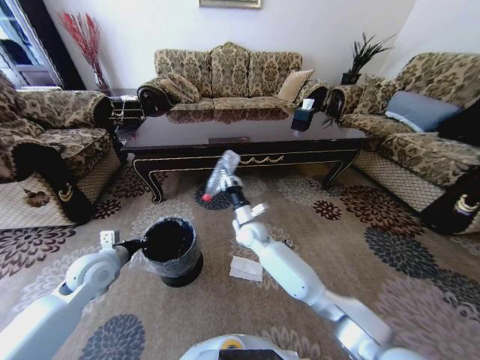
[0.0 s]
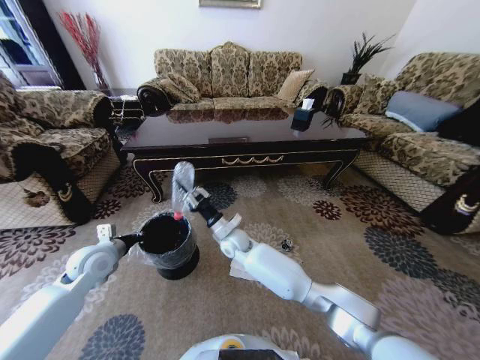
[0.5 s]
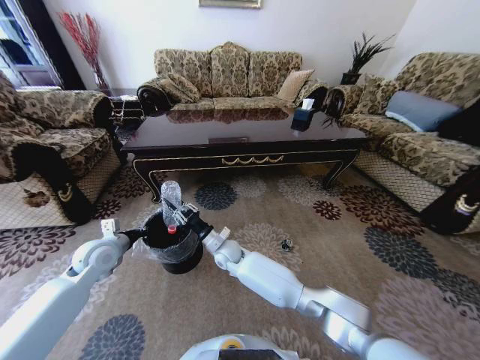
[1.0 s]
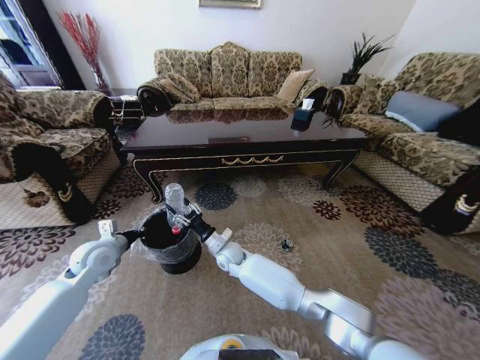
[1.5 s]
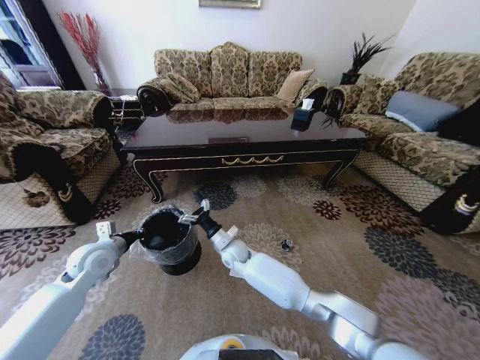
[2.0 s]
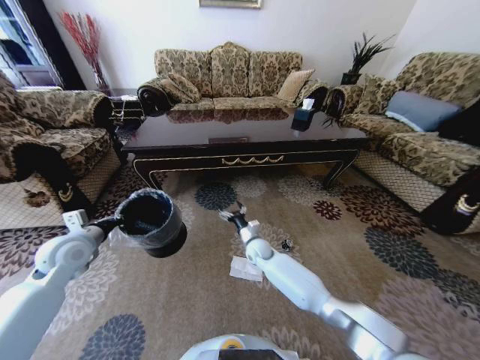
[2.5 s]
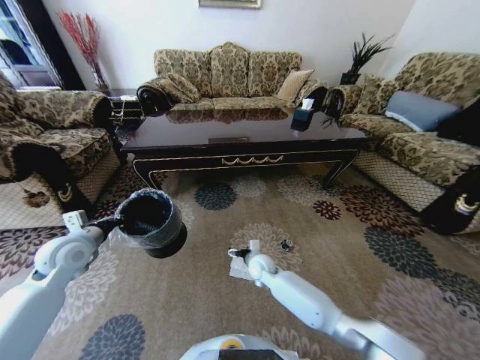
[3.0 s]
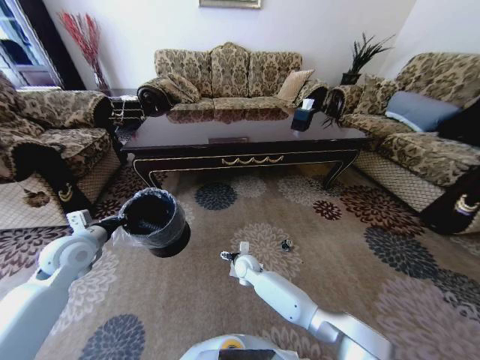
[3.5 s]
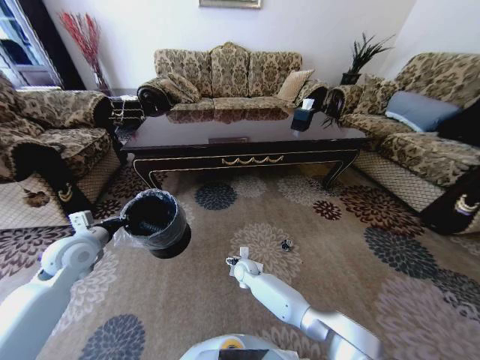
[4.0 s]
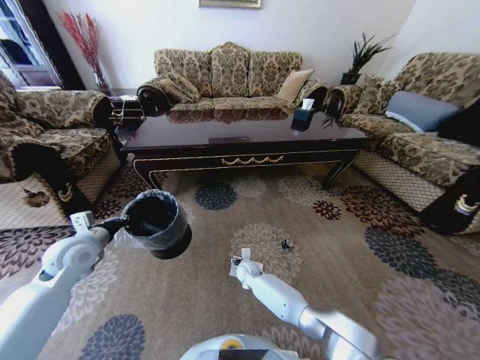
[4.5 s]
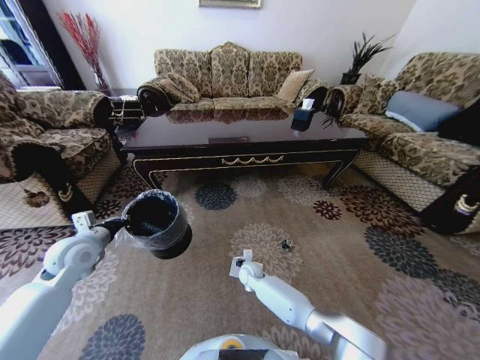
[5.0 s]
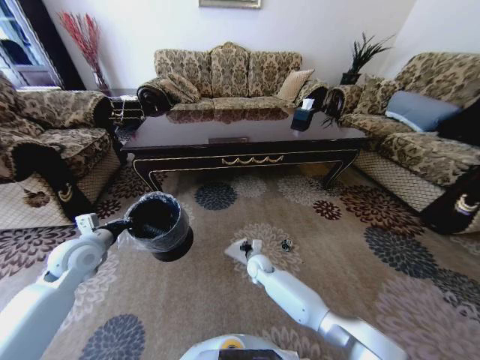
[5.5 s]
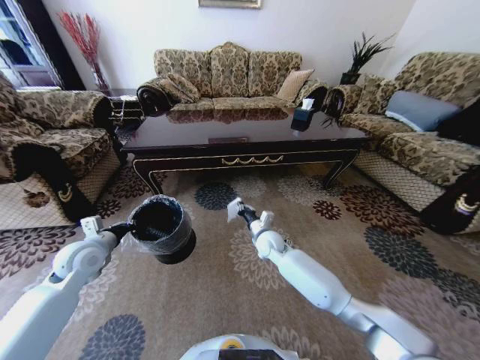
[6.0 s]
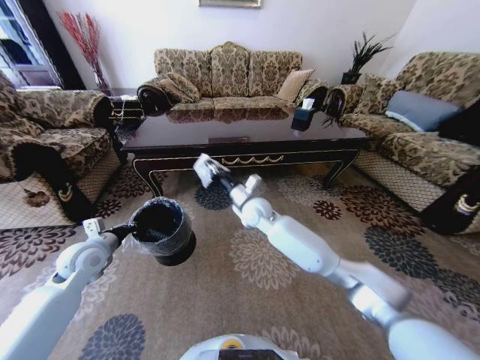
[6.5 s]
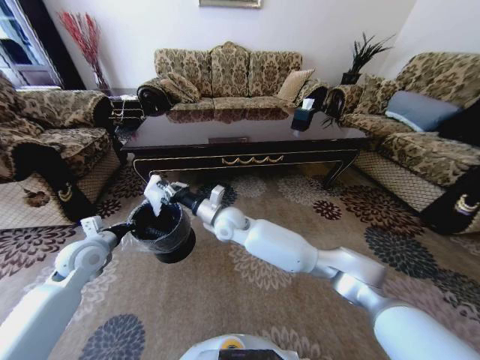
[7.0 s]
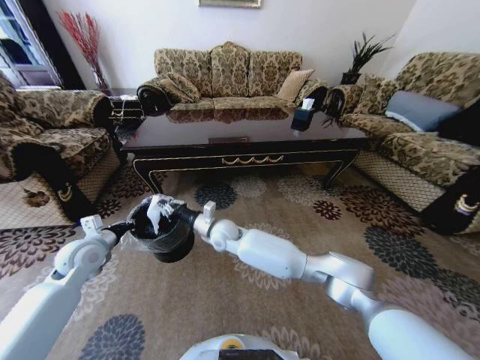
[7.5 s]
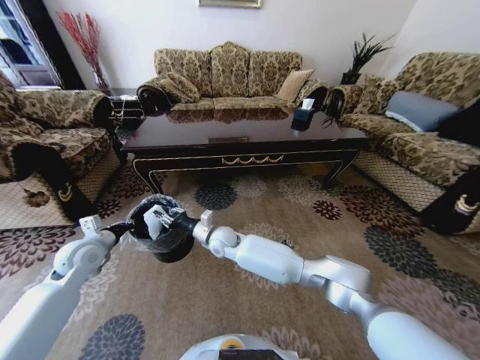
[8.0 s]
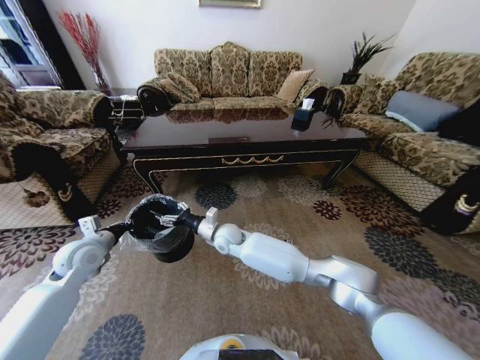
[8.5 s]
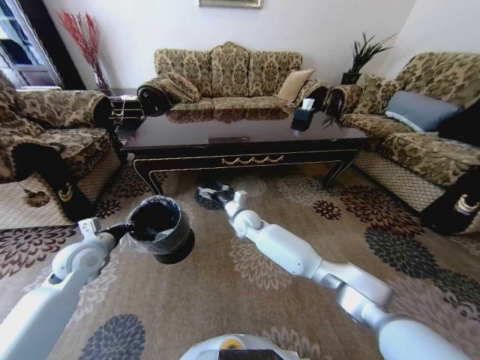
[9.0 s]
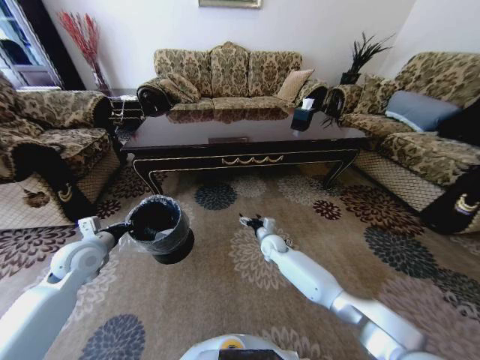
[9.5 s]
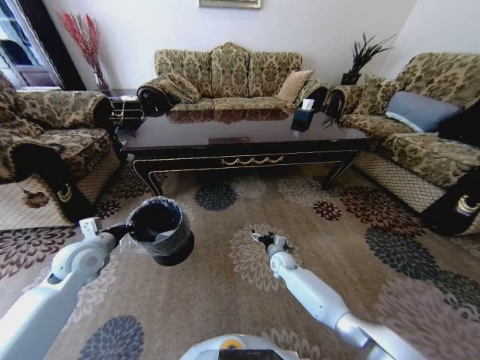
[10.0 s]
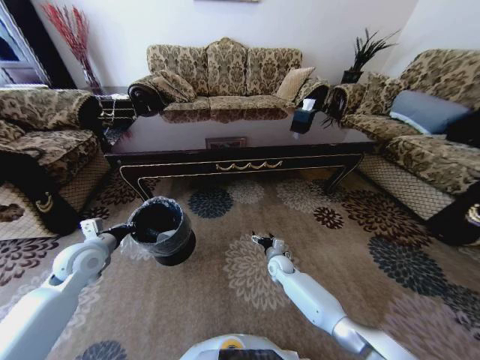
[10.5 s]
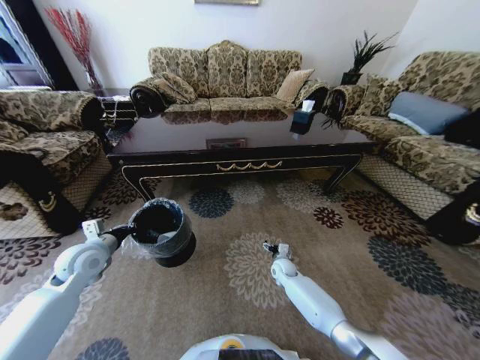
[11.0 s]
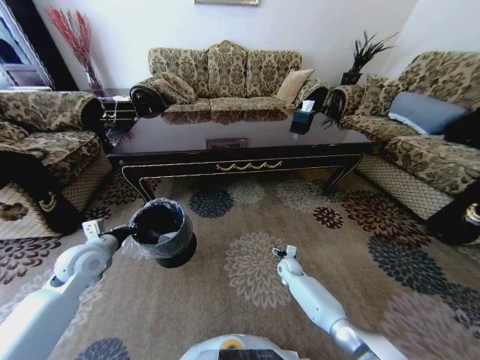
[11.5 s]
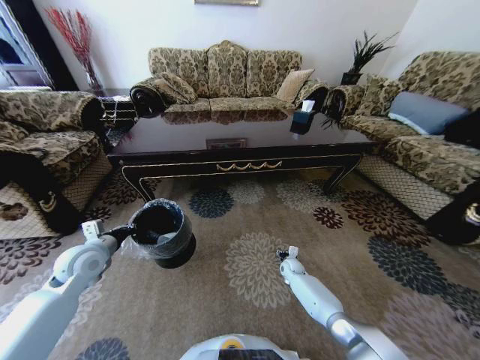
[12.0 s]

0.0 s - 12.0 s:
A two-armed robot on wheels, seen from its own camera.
Task of the whole recording: Move to the front of the table and pick up the trash from the floor, then place it into the trash bin.
0.0 s - 2.0 s: The right gripper goes about 10 cm to the left and downward, and opens.
2.0 s - 4.0 s: The right gripper shifts some 10 cm downward.
4.0 s - 6.0 s: The right gripper shifts approximately 15 cm upward and to the right, and closes.
6.0 s - 8.0 s: The right gripper shifts some 15 cm to the left.
8.0 s - 10.0 s: The right gripper goes roughly 30 cm to the right and downward, and opens.
10.0 s - 12.0 s: The right gripper moves downward and to the right, roughly 10 cm.

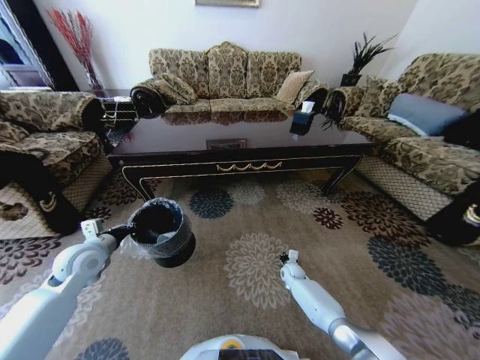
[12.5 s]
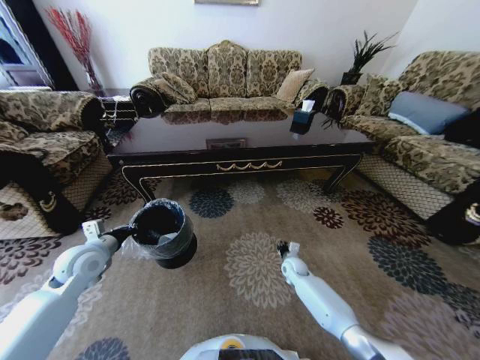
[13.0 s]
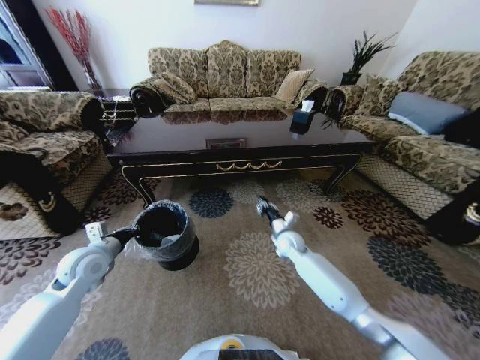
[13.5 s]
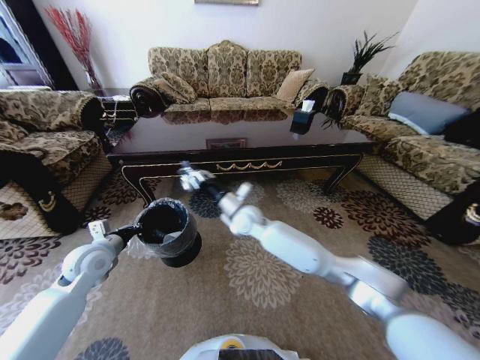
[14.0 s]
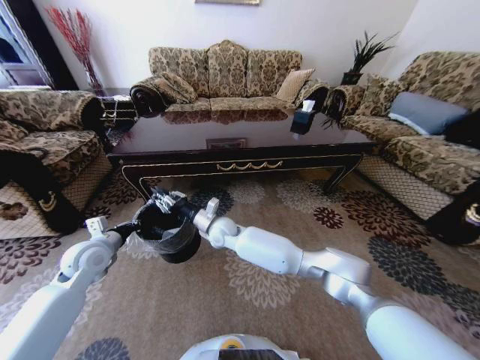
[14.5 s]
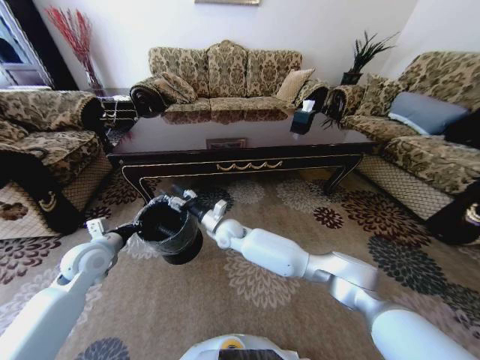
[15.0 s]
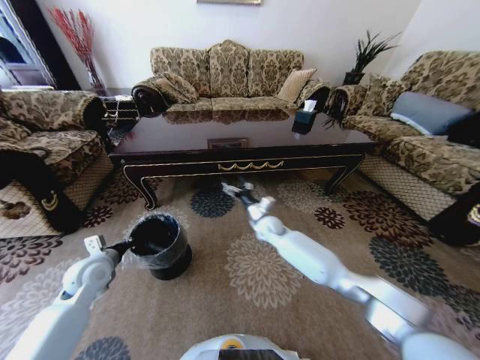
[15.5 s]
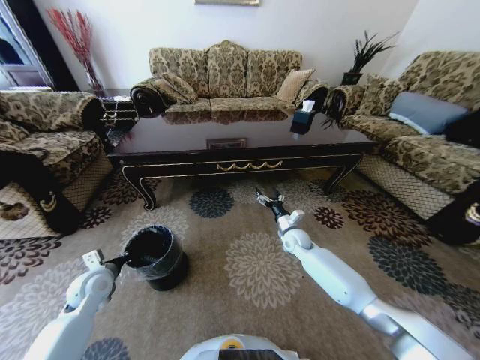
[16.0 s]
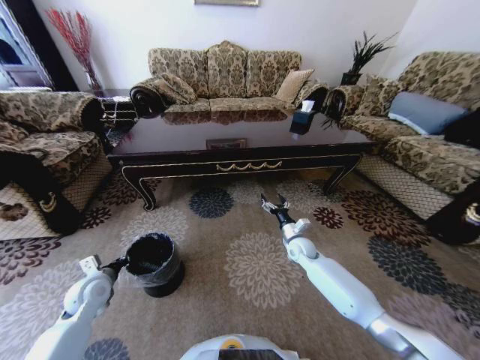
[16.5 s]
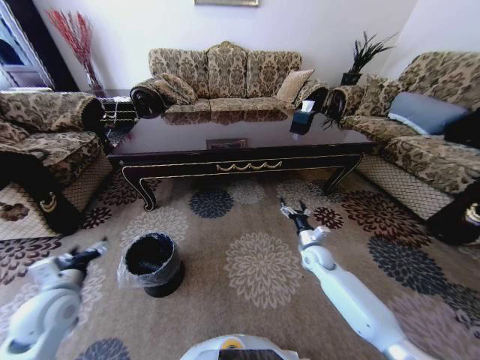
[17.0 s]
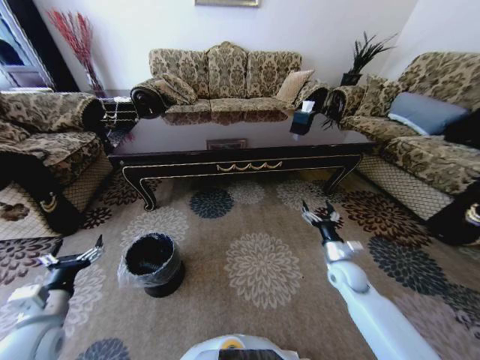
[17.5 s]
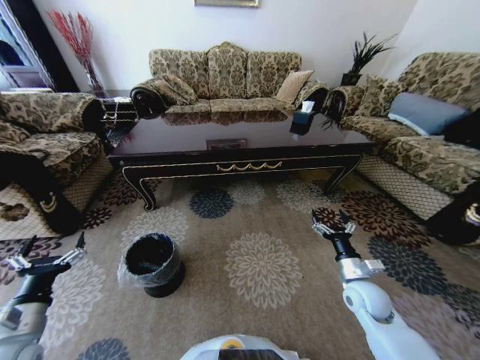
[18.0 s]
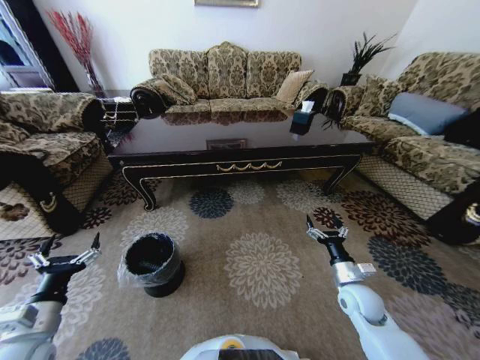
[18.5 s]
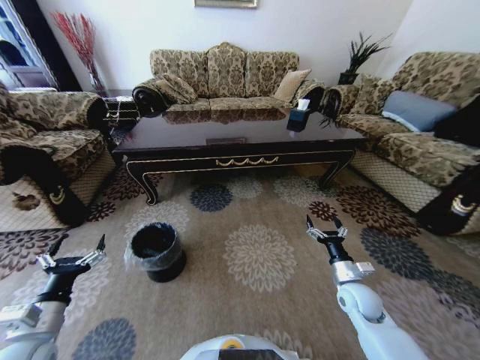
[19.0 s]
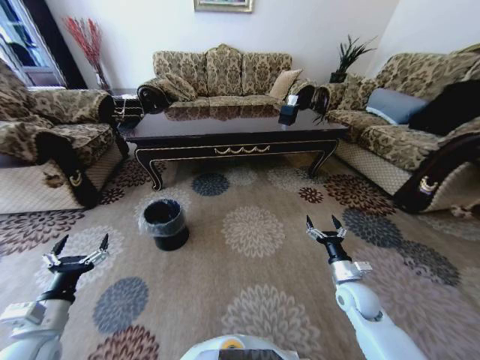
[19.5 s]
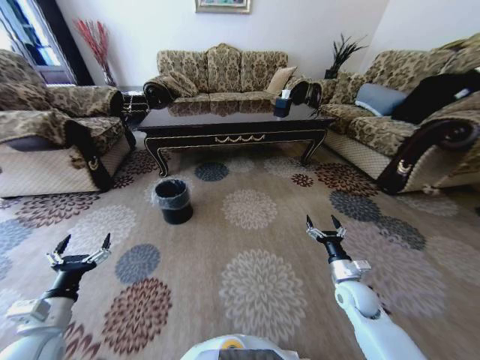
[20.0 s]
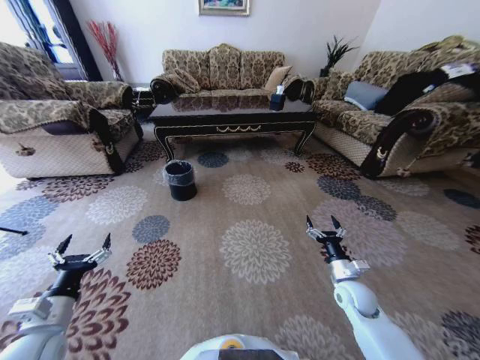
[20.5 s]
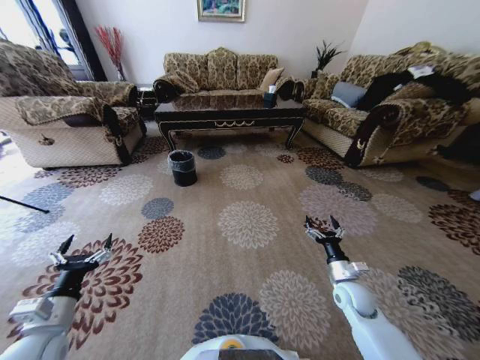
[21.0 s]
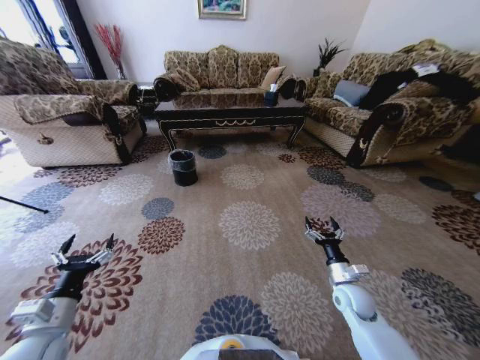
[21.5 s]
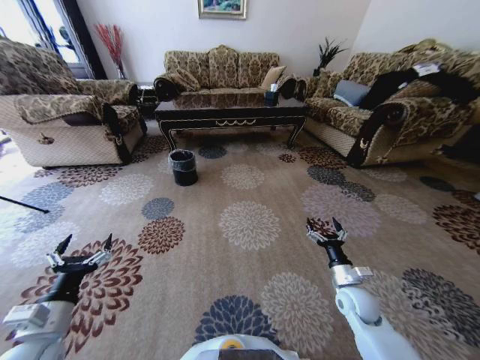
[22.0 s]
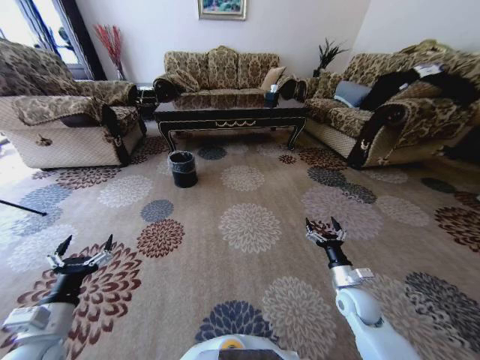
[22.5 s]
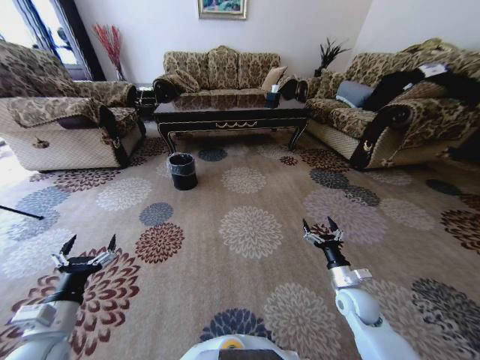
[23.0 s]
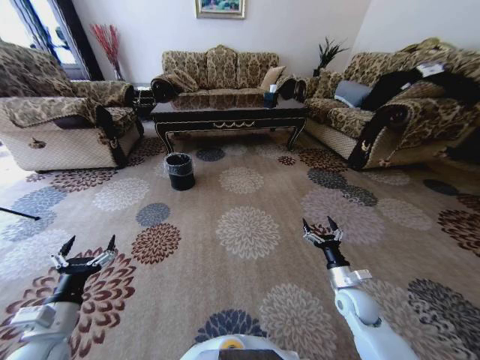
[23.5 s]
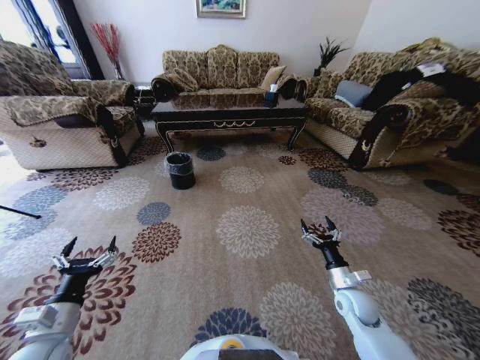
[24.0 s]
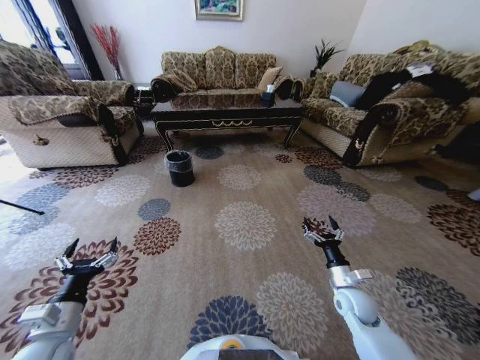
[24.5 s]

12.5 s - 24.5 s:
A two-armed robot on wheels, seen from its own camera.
Task of the whole recording: Move to the front of the table and pick up the trash from the floor, then place it into the trash bin.
12.5 s - 14.5 s: The right gripper goes roughly 40 cm to the left and upward.
14.5 s - 16.5 s: The right gripper travels to the right by some 30 cm, and opens up. The left gripper shifts some 10 cm downward and backward.
16.5 s - 18.5 s: The left gripper goes about 15 cm backward and upward, and opens up; the right gripper moves backward and to the right, some 20 cm.
22.5 s - 24.5 s: The grippers move only a little.

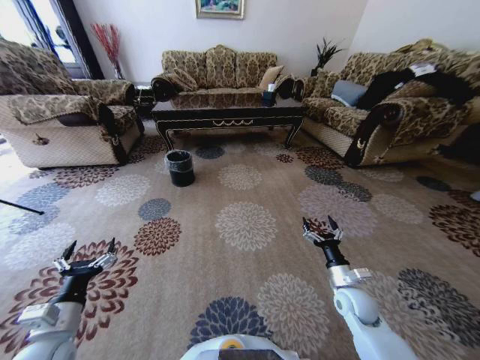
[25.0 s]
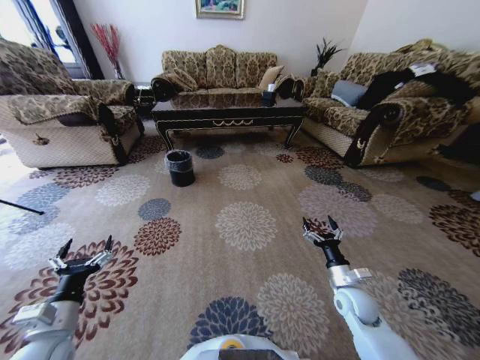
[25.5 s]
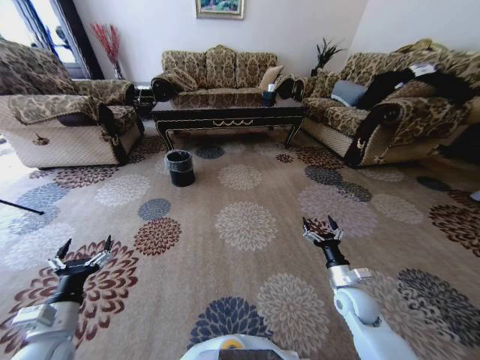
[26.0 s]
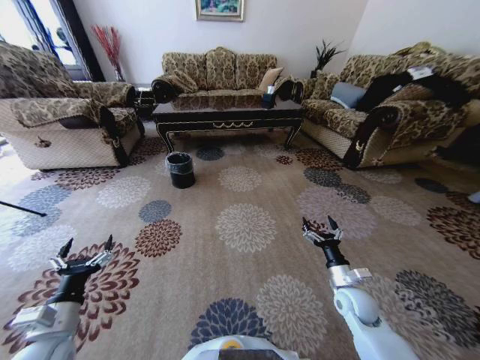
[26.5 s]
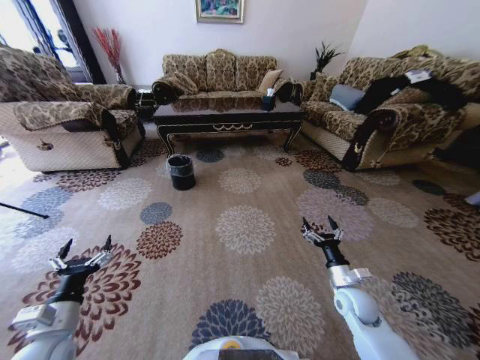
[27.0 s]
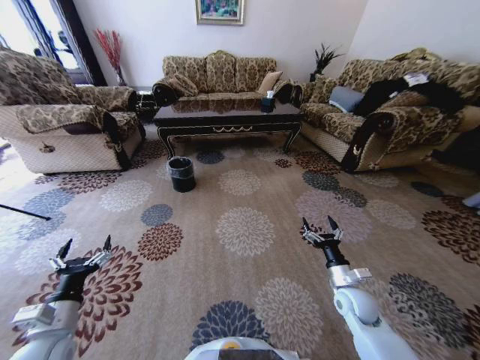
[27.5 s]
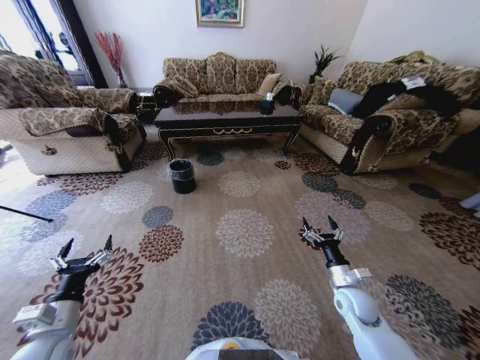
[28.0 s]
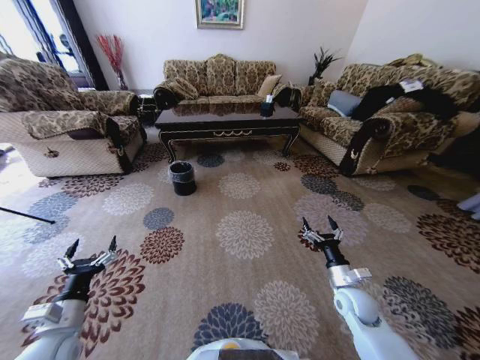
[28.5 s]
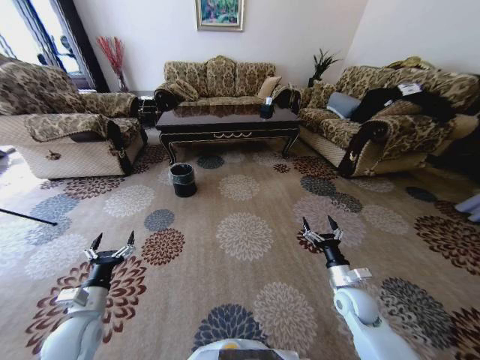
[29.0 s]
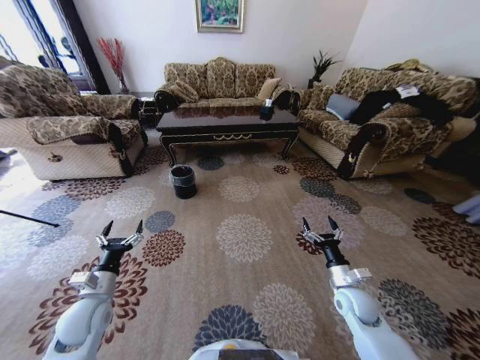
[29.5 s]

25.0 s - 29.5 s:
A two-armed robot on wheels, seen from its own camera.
Task of the whole recording: Move to the front of the table and pick up the trash from the floor, then place it into the trash bin.
27.0 s - 29.5 s: The left gripper goes approximately 10 cm forward.
